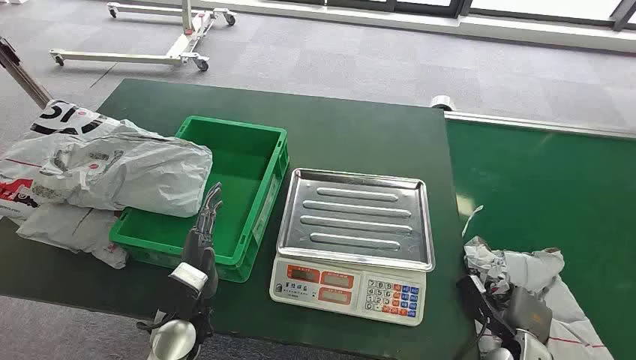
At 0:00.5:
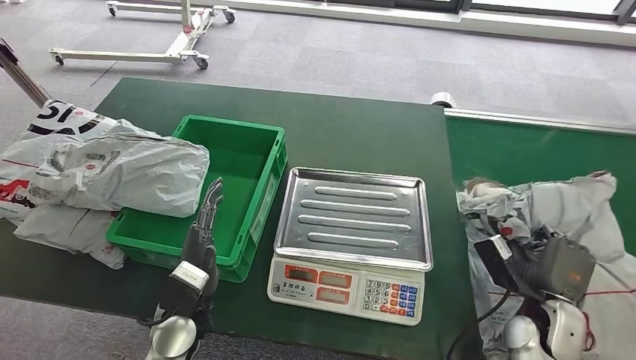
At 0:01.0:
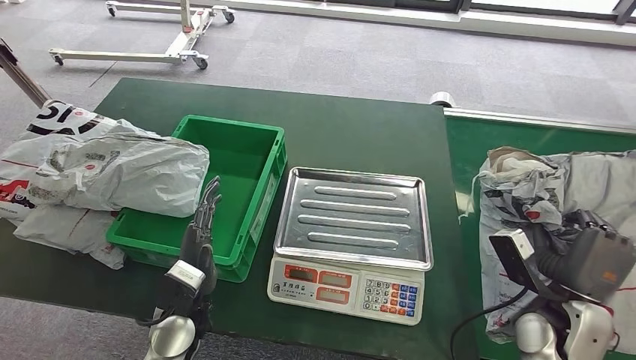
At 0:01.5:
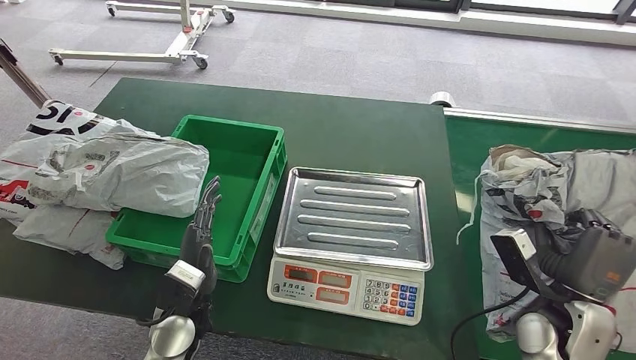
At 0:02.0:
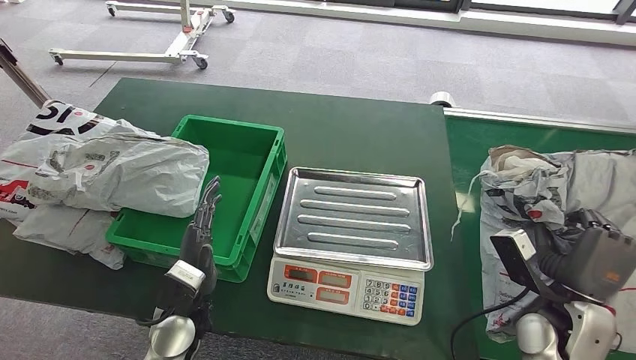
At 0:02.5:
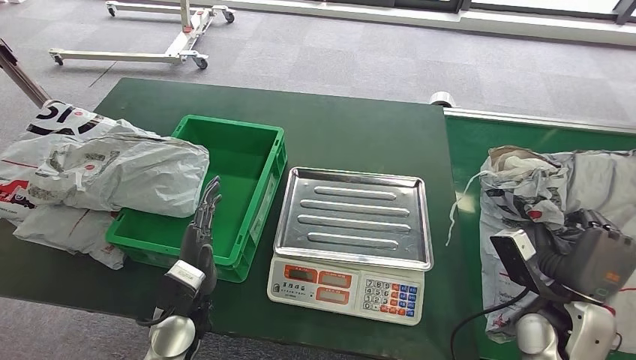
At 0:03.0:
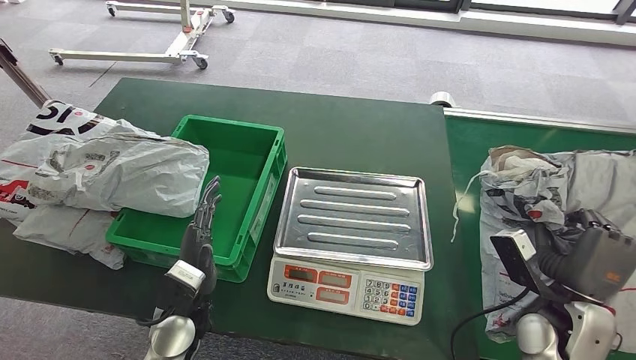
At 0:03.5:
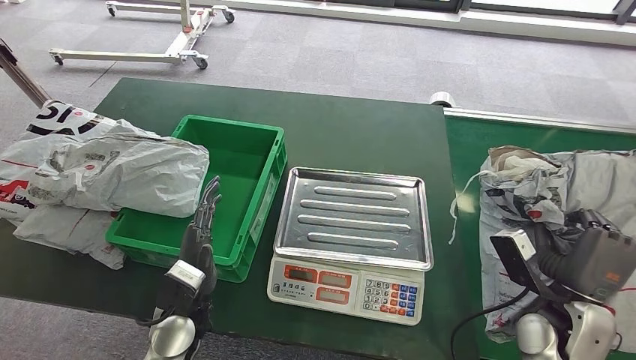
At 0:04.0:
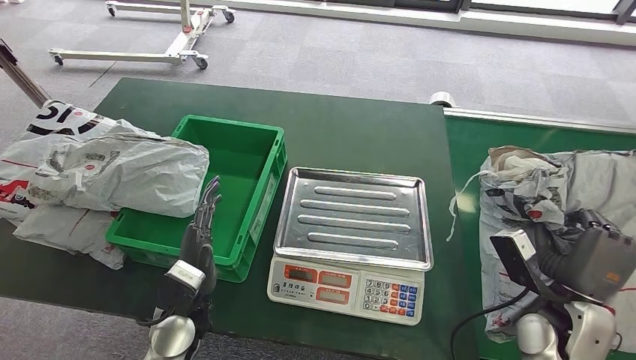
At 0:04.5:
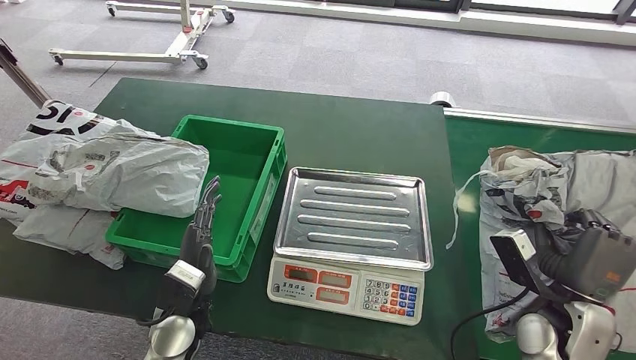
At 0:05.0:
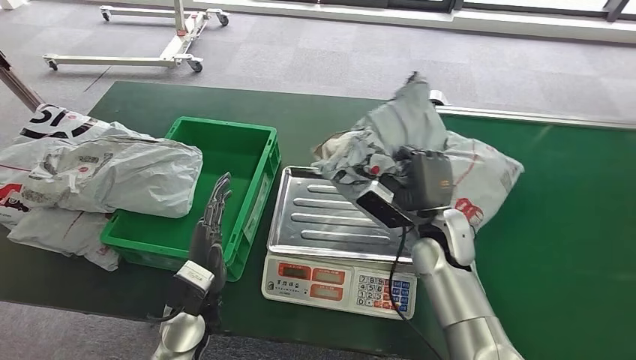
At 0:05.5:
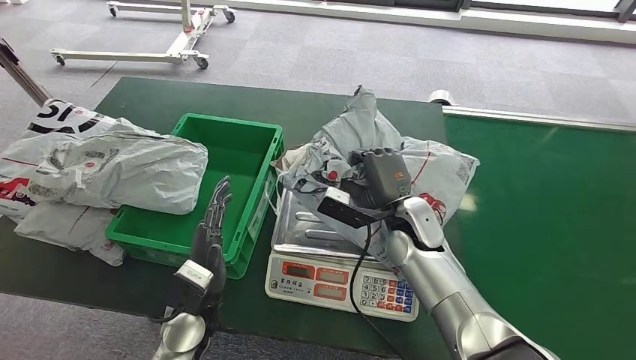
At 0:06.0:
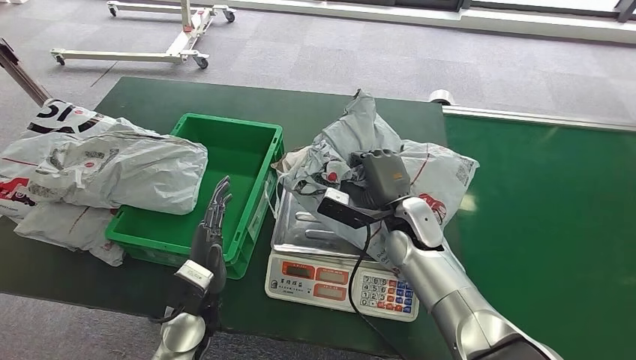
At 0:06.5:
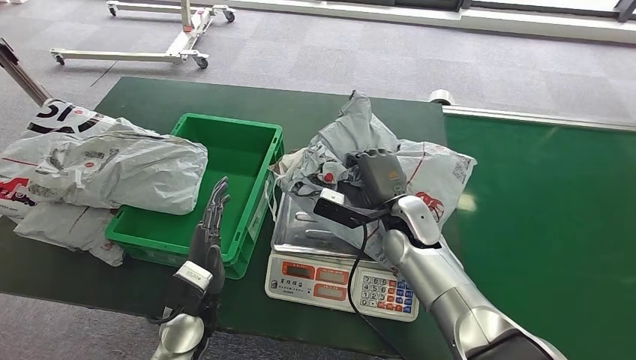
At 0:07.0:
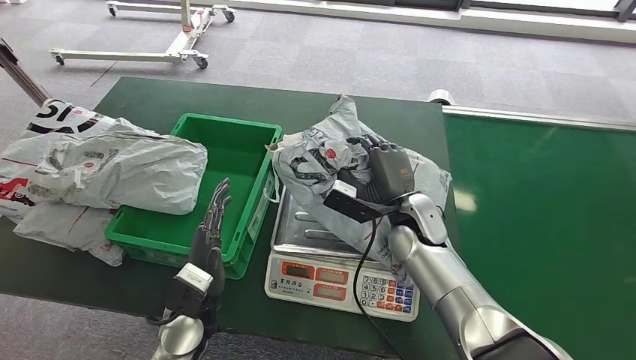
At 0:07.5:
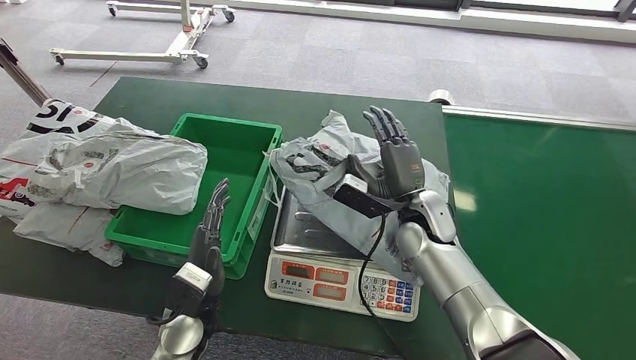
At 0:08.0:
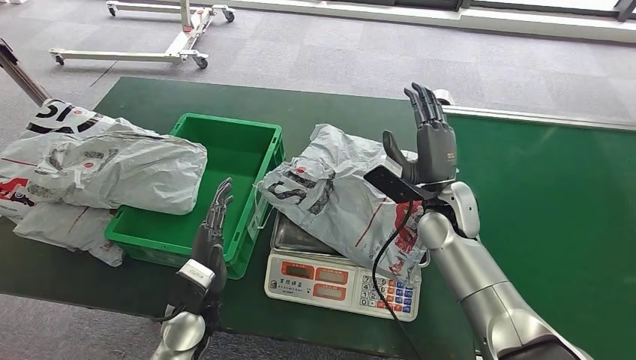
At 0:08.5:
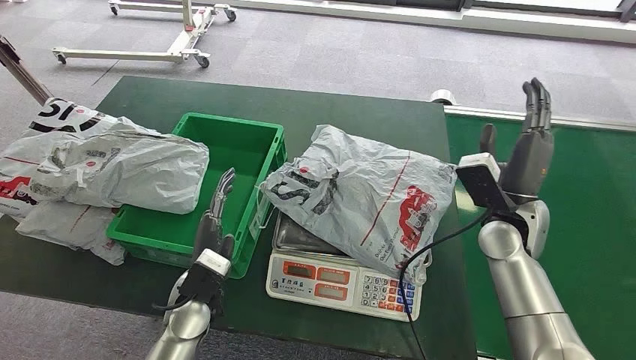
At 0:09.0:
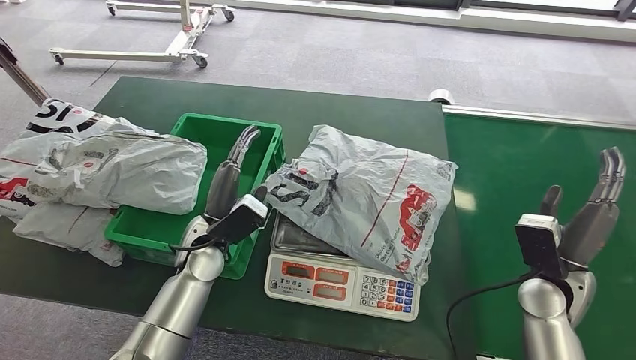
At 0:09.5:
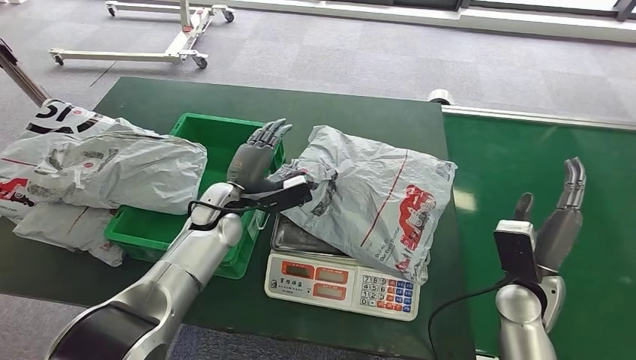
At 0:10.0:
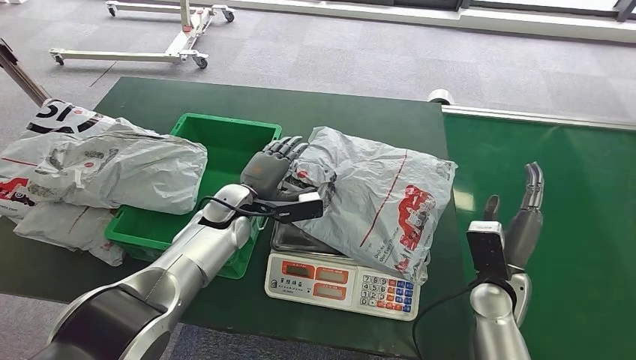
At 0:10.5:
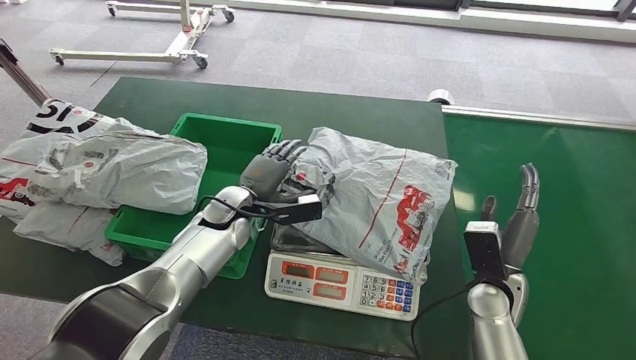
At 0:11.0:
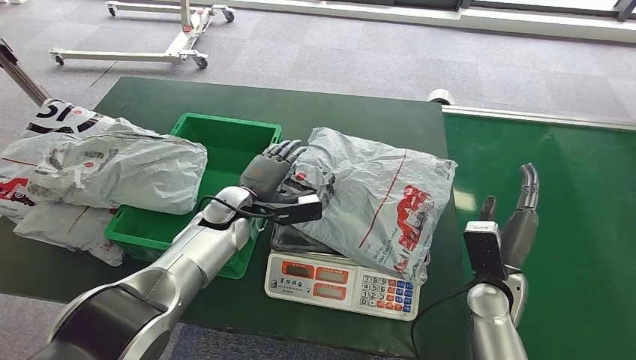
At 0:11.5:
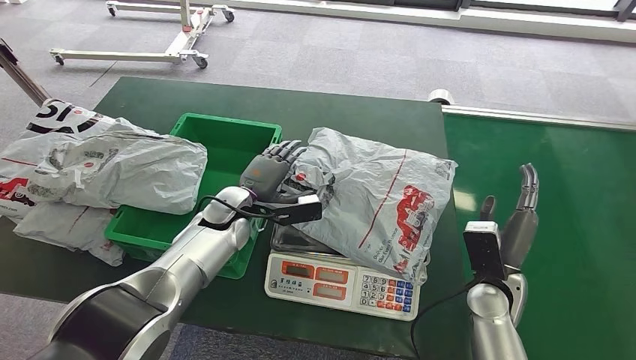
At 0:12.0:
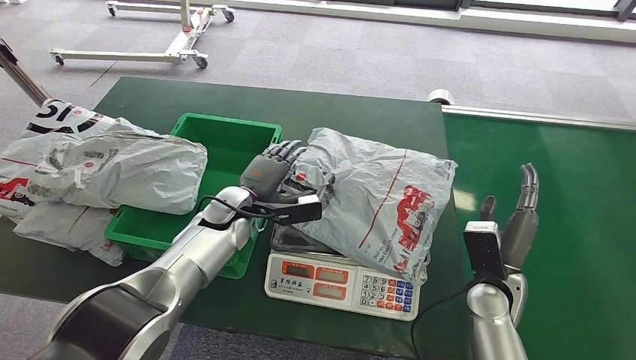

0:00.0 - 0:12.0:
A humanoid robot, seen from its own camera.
Step, 0:00.0 - 0:05.0: Pick up the package from the conveyor belt.
Step, 0:05.5 - 0:08.5: Place the package onto the inbound machine.
0:02.0 - 0:04.0: Both hands stay put.
0:06.0 - 0:08.0: The right hand is displaced to the right by roughly 5 cm.
0:08.0 - 0:10.0: The right hand heads backward, to the right and downward, covering roughly 15 cm. Meanwhile the left hand is displaced forward by some 20 cm.
0:10.0 - 0:12.0: Both hands stay about where they are.

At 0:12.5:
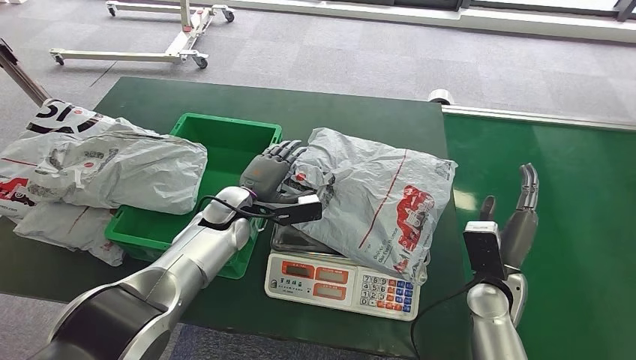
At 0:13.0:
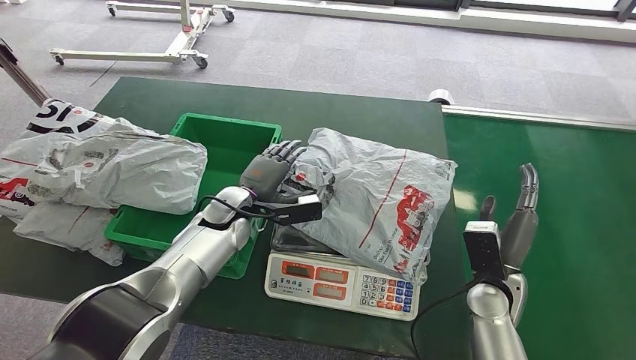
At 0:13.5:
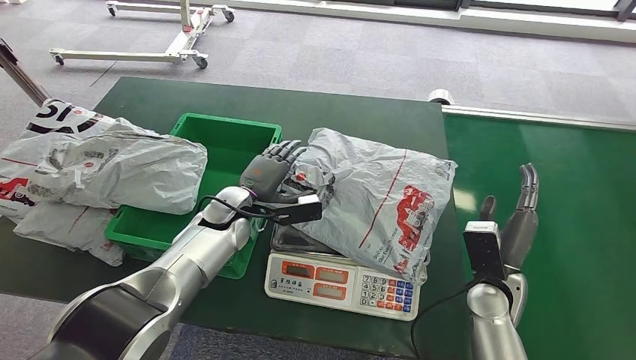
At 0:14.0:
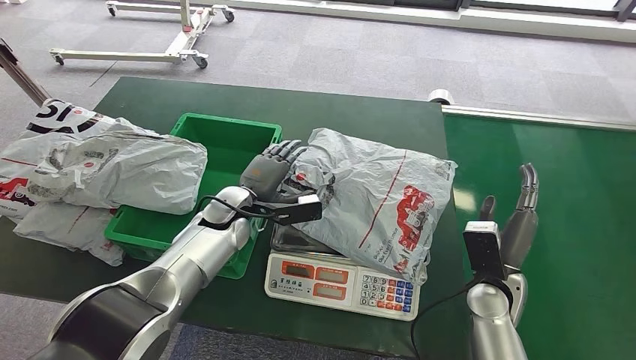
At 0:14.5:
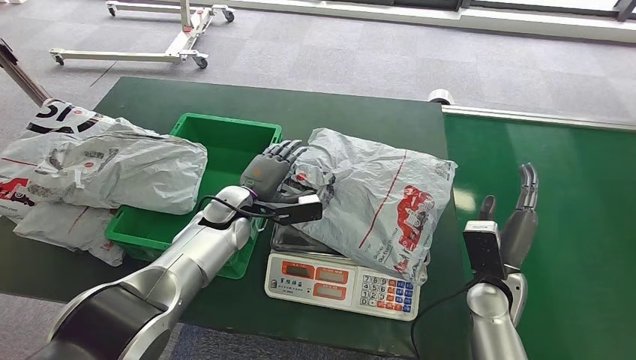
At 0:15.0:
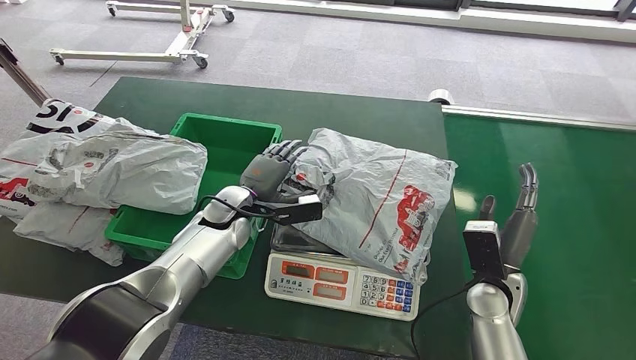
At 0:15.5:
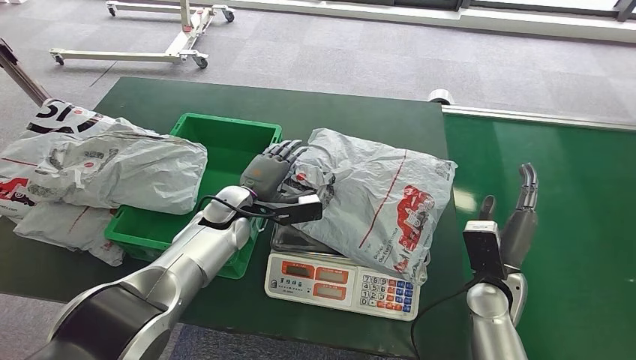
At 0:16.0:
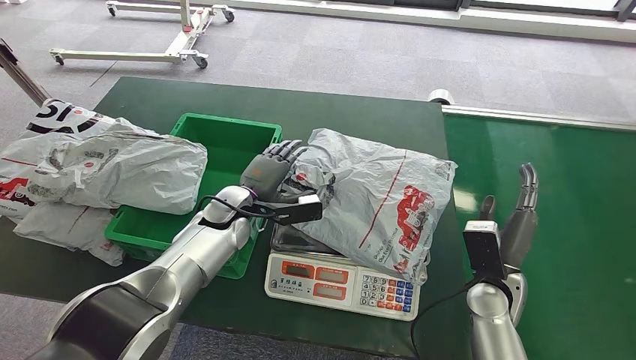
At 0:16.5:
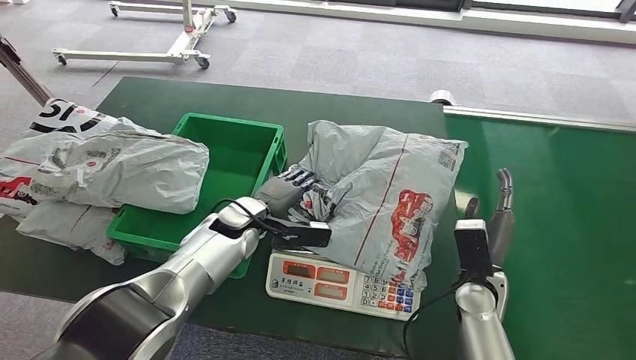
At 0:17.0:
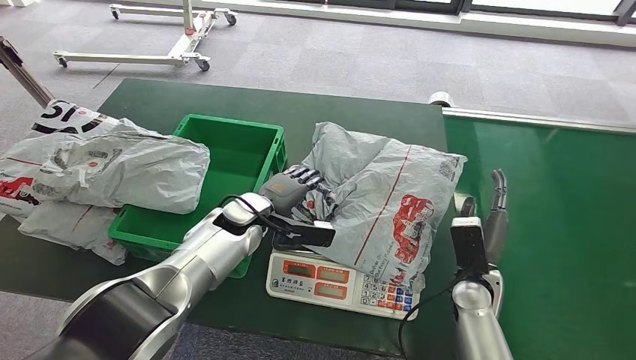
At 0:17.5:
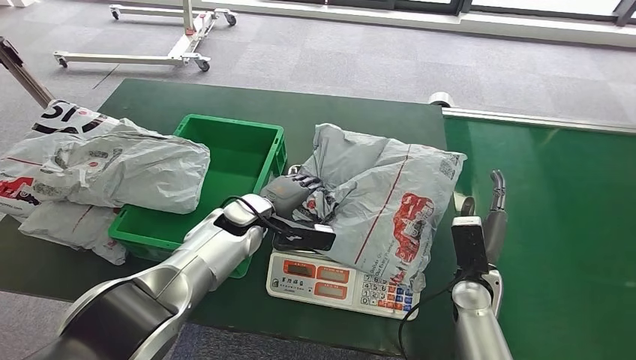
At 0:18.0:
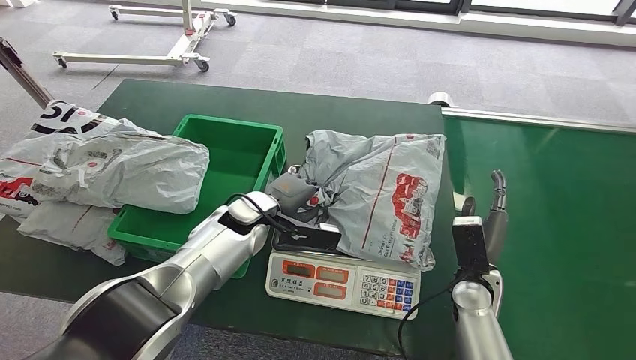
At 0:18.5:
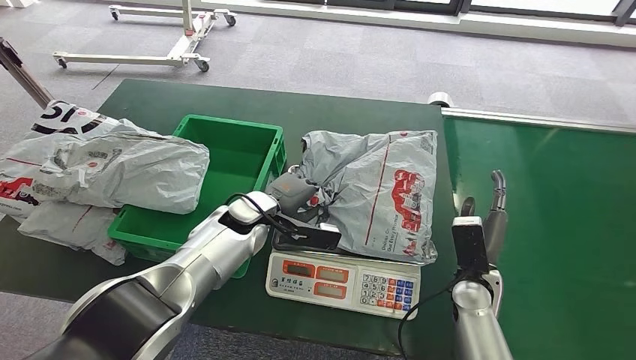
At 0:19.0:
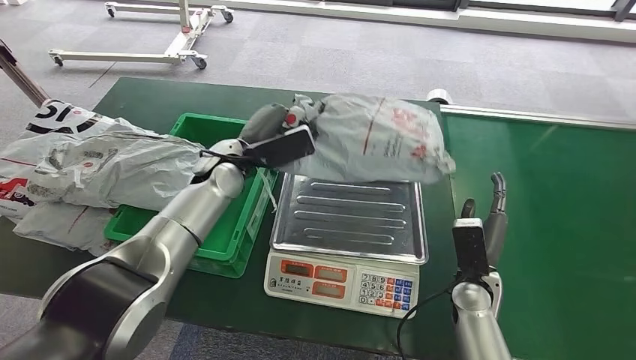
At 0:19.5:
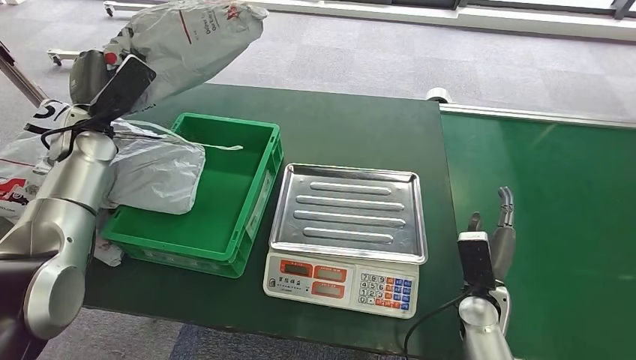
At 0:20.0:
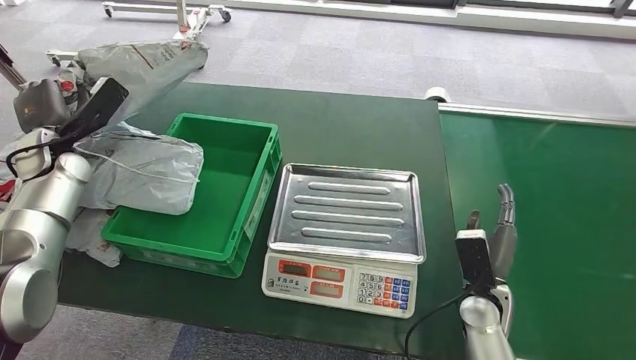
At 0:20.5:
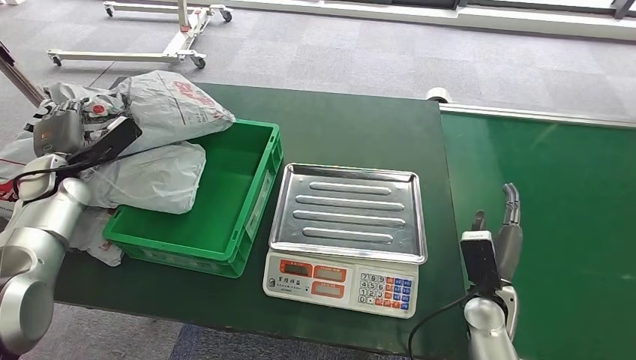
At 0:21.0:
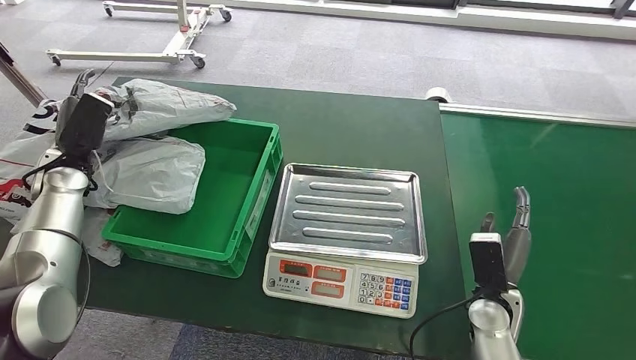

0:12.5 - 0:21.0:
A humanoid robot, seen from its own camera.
Step, 0:12.5 - 0:19.5: Pick up the package from the inbound machine.
Step, 0:20.0 - 0:21.0: Place the package into the parcel locker.
0:12.5 - 0:14.5: Both hands stay put.
